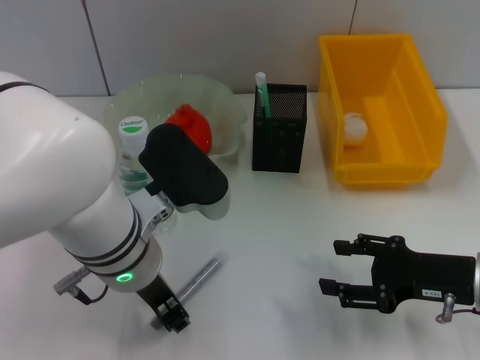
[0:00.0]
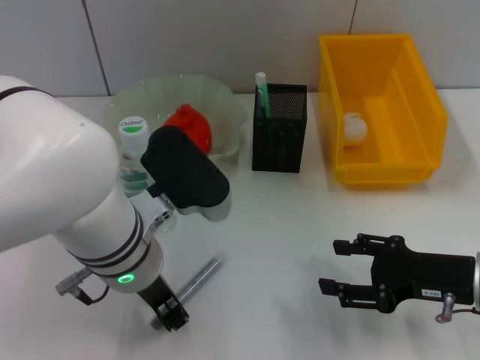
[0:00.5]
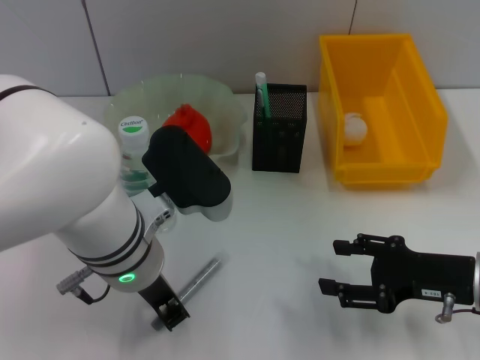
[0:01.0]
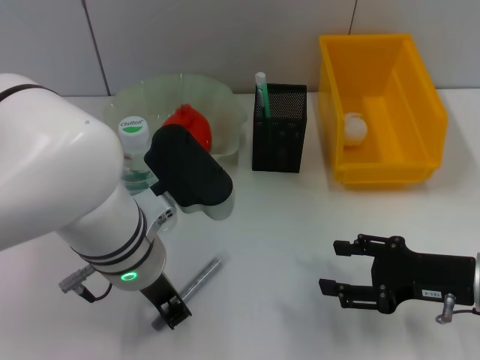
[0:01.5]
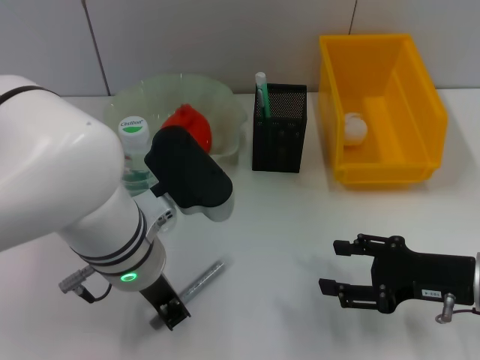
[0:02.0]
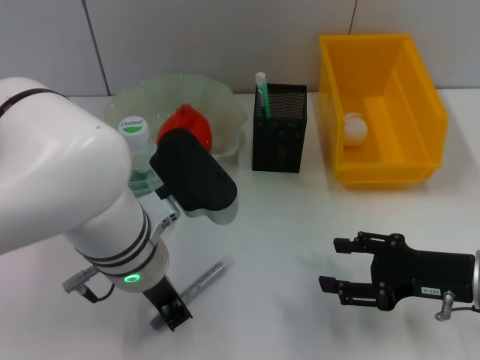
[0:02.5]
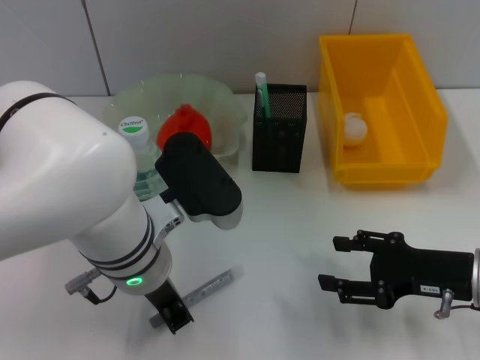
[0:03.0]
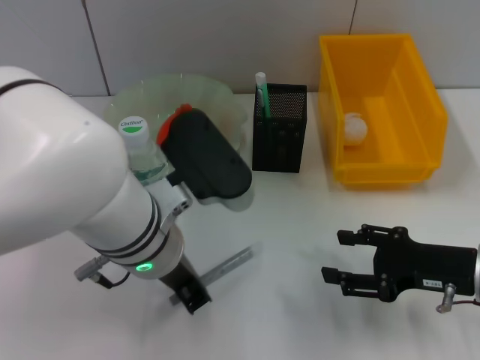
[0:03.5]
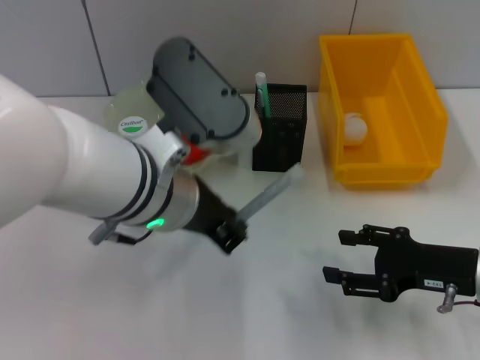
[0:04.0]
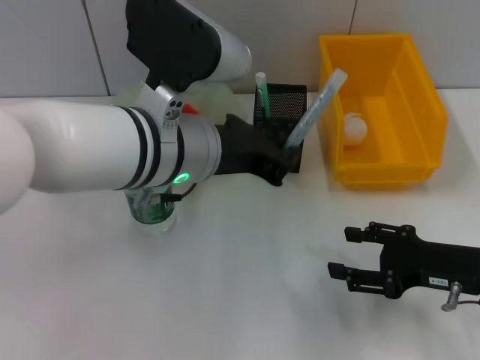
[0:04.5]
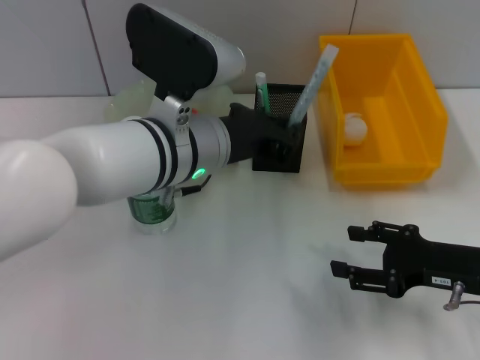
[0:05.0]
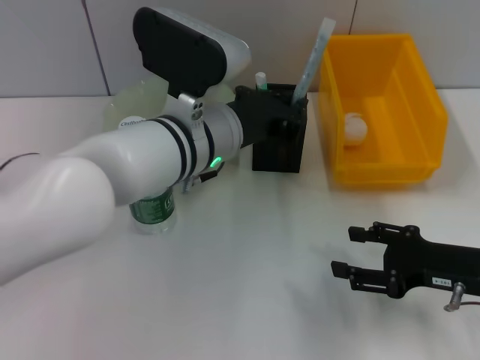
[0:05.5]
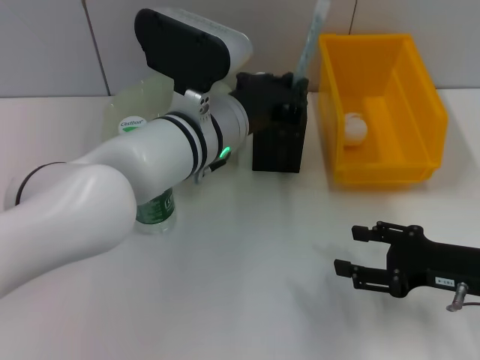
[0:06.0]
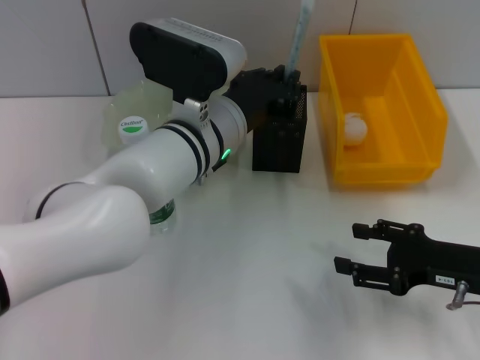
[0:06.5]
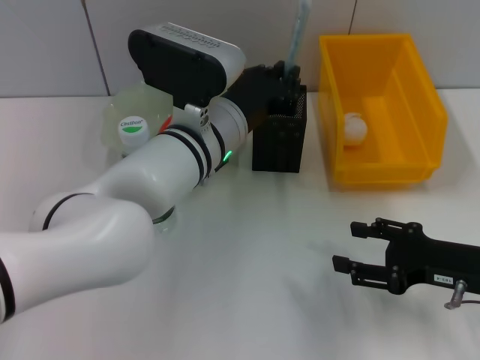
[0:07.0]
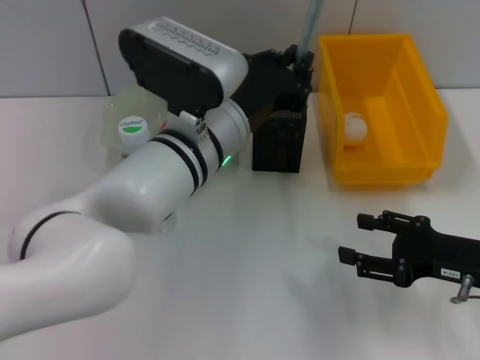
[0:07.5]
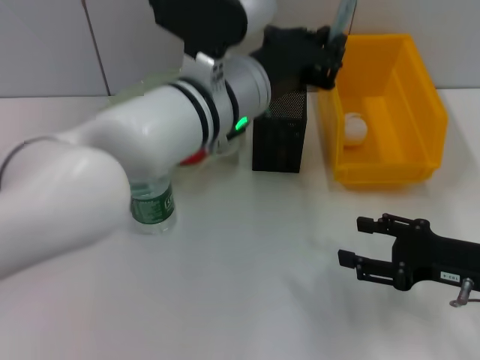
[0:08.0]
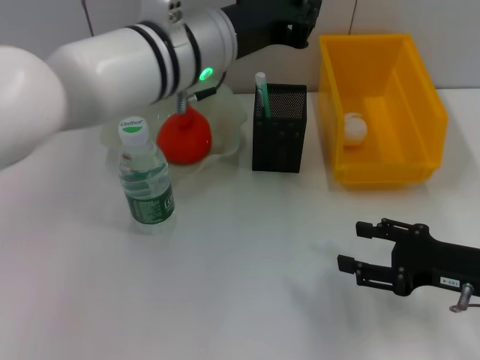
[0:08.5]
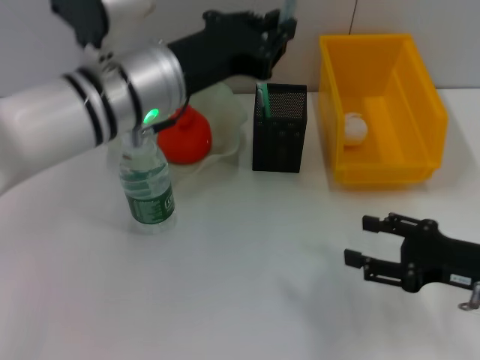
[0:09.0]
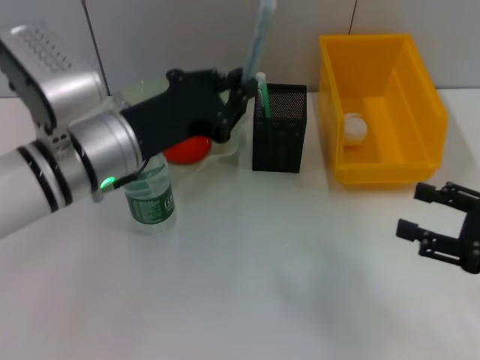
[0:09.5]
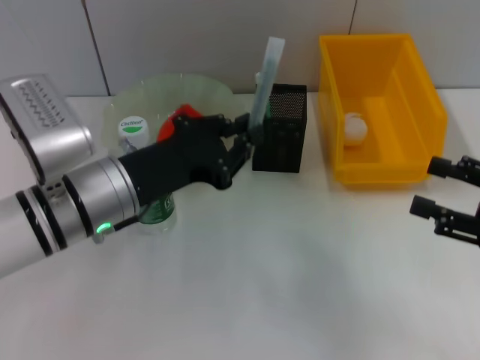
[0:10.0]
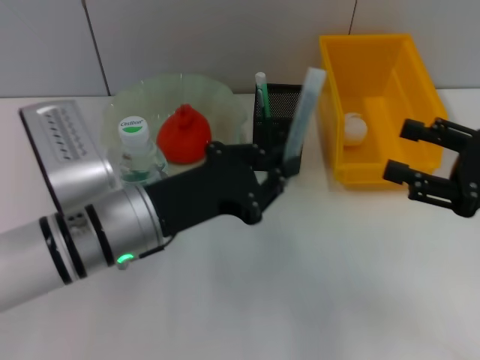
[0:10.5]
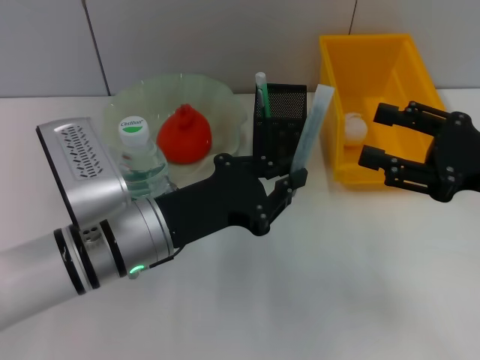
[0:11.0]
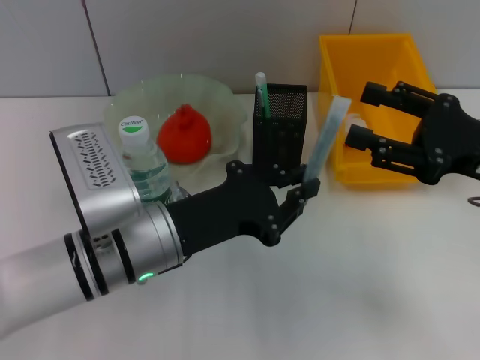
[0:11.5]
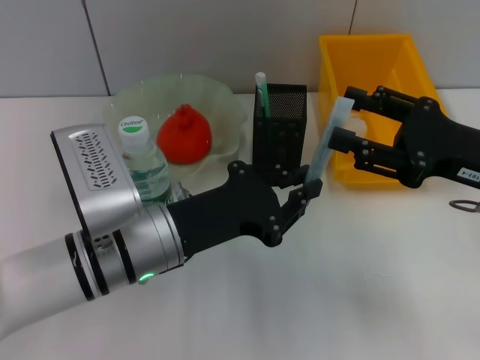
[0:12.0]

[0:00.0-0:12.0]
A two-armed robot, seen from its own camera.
Step, 0:00.0 to 0:02.5: Grab the gray glue with the left hand.
0:00.0 to 0:02.0: The two grippers keep their place.
0:02.0 to 0:04.0: The left gripper travels upward by roughly 5 cm.
0:04.0 to 0:06.0: The left gripper goes about 10 cm forward.
0:06.0 to 0:08.0: The left gripper changes place by about 5 cm.
0:08.0 to 0:10.0: The right gripper is displaced upward by some 5 cm; the left gripper is displaced to the left and downward by approximately 15 cm.
0:10.0 to 0:12.0: The left gripper ends up about 5 cm from where it was; the right gripper travels to the left and forward by roughly 10 cm.

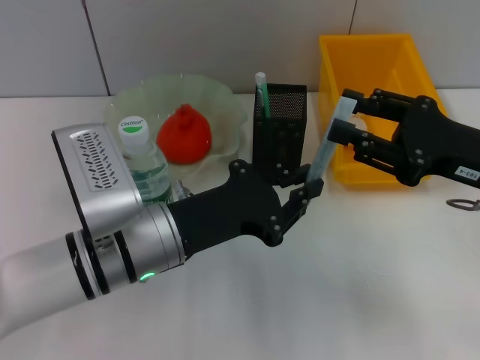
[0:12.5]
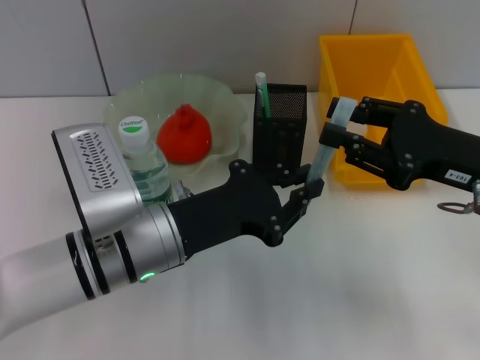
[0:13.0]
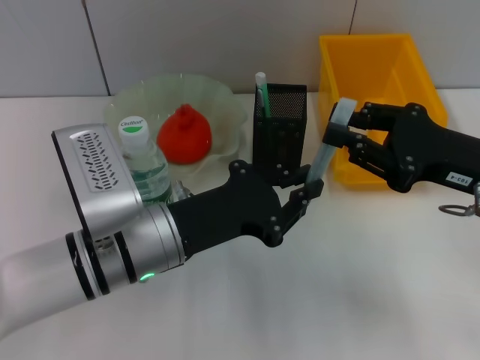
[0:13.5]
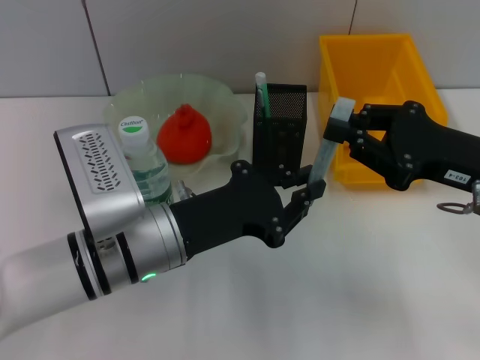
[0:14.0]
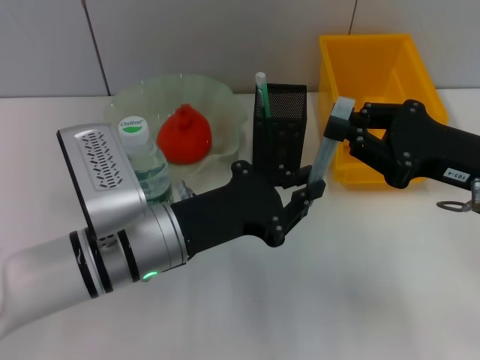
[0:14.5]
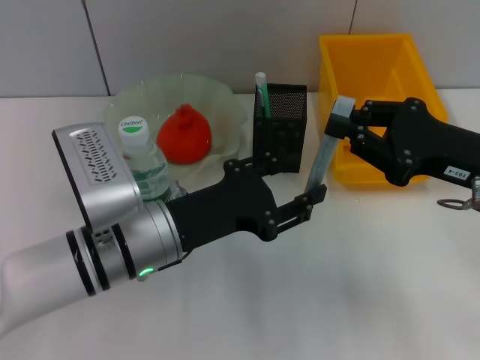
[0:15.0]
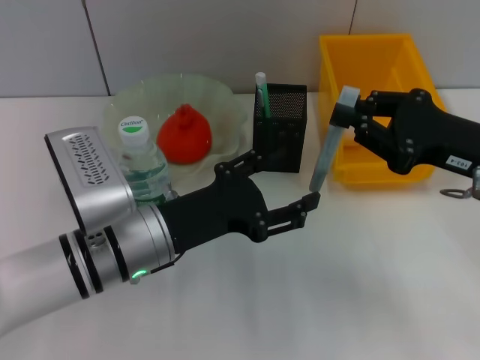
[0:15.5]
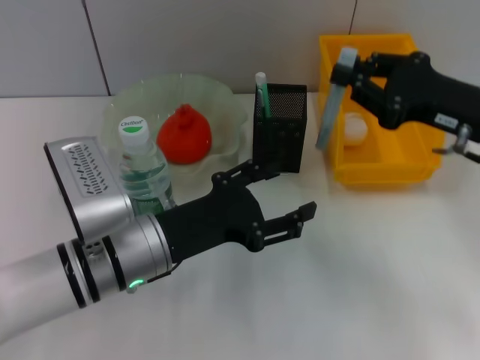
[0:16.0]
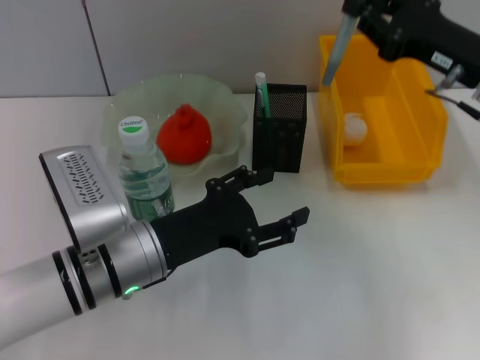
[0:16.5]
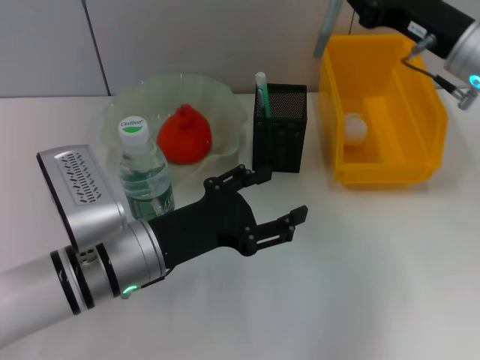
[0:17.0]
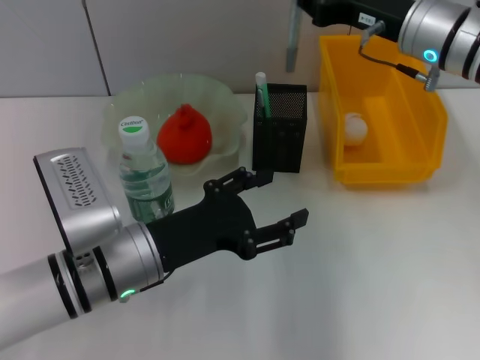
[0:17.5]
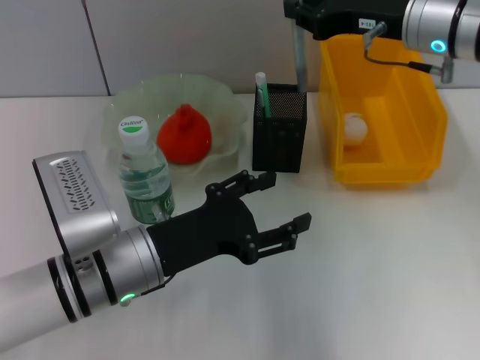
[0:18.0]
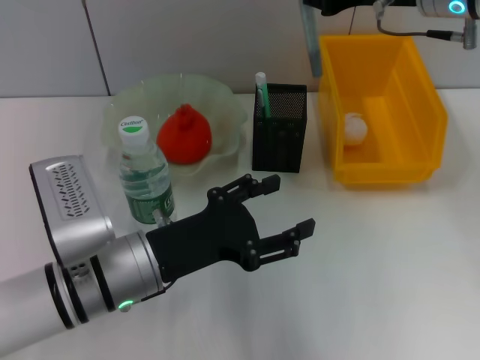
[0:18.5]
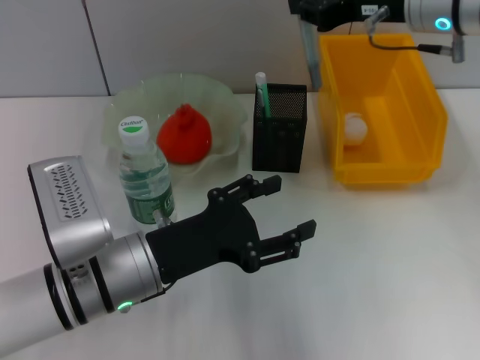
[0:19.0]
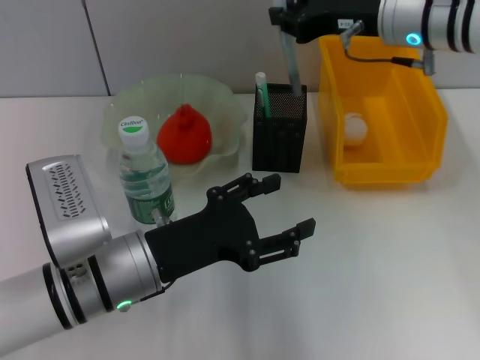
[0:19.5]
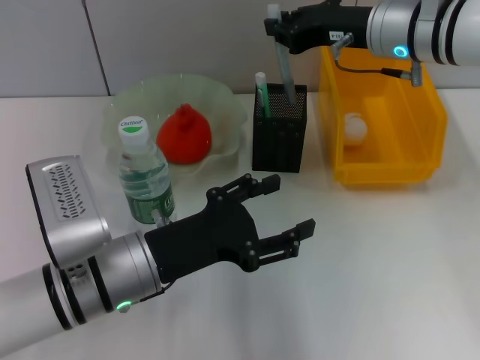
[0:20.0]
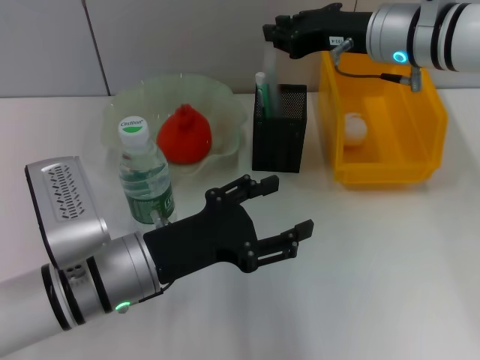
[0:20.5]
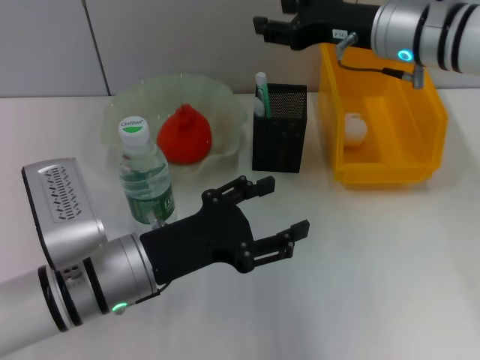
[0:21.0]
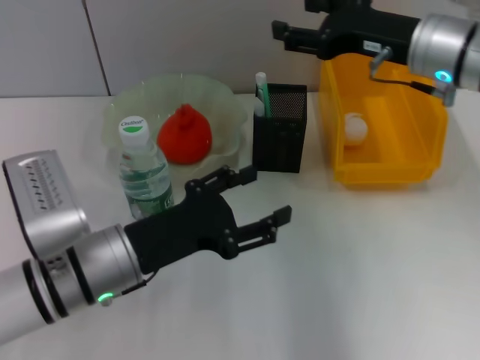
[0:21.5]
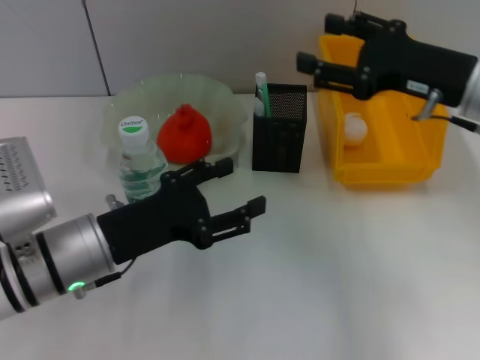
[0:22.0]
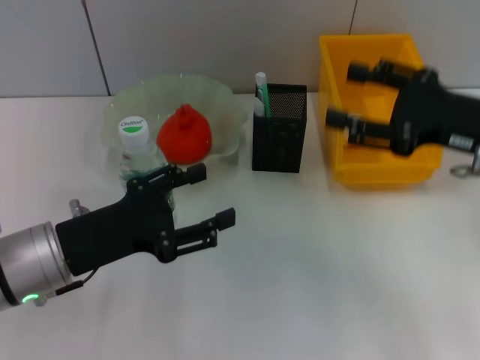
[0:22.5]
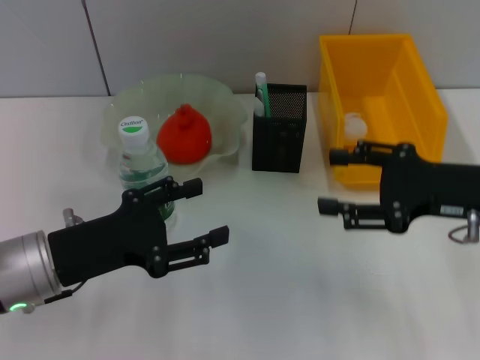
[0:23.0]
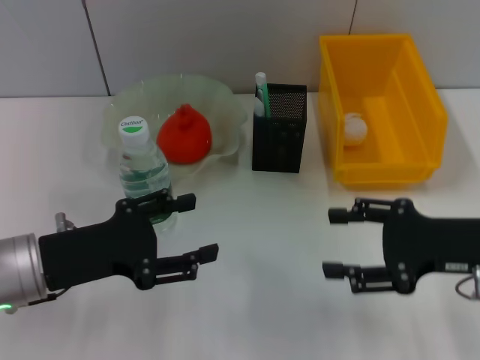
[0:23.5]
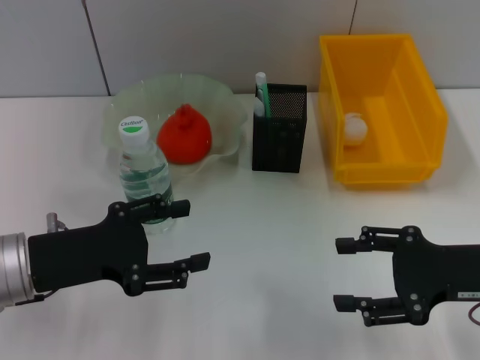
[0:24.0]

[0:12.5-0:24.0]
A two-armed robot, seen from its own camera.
Step, 0:12.5 to 0:14.5: Pass the gray glue from the left hand to the right hand.
Step, 0:15.5 to 0:20.5: Place the gray glue into the pen holder with the right hand.
0:12.5 to 0:14.5: The right gripper closes its fingers.
0:14.5 to 0:16.5: The left gripper opens its fingers. Meanwhile the right gripper heads forward, covering about 5 cm.
0:16.5 to 0:18.5: The right gripper moves upward and to the left, roughly 10 cm.
0:18.5 to 0:20.0: The right gripper is displaced downward by some 5 cm.
0:20.0 to 0:22.0: The right gripper goes approximately 10 cm backward and to the right, and opens up.
0:22.0 to 0:24.0: The right gripper shifts approximately 15 cm backward and downward. Meanwhile the left gripper heads to the left, covering some 5 cm.

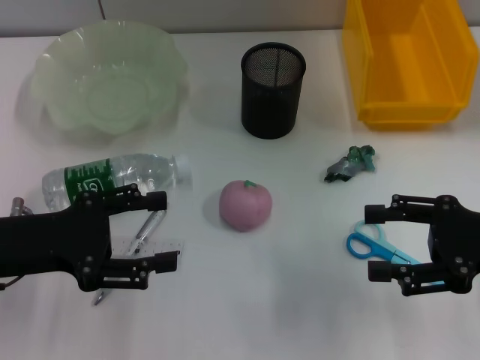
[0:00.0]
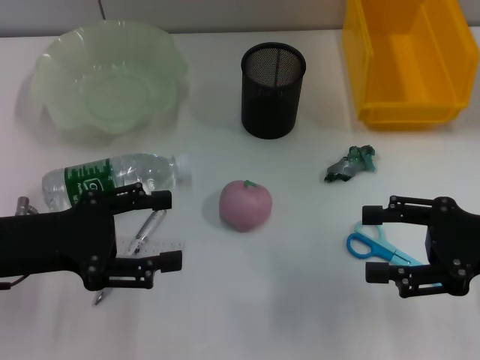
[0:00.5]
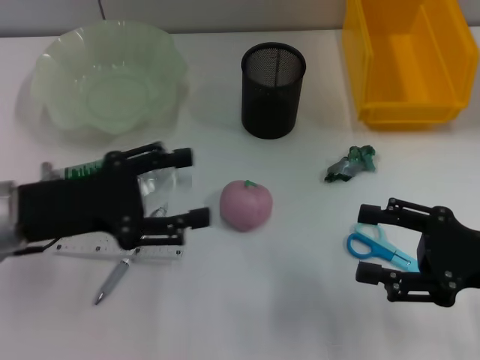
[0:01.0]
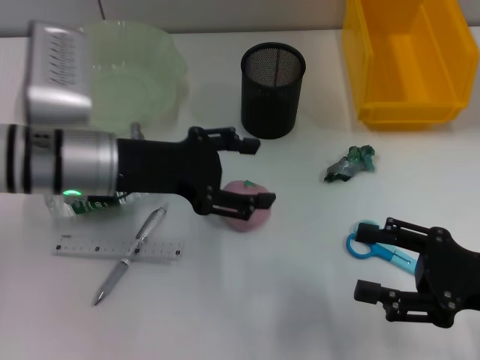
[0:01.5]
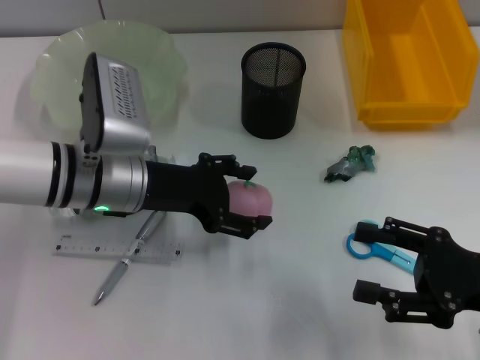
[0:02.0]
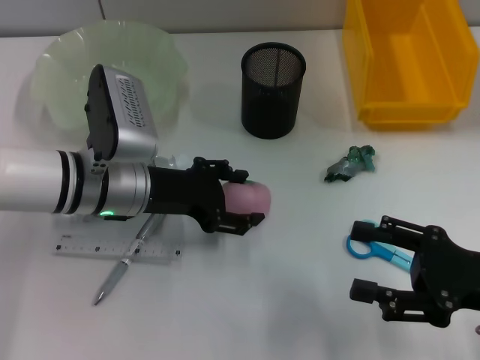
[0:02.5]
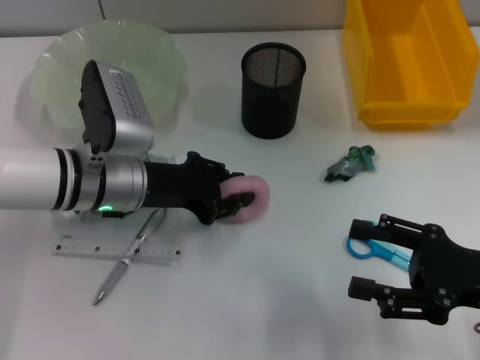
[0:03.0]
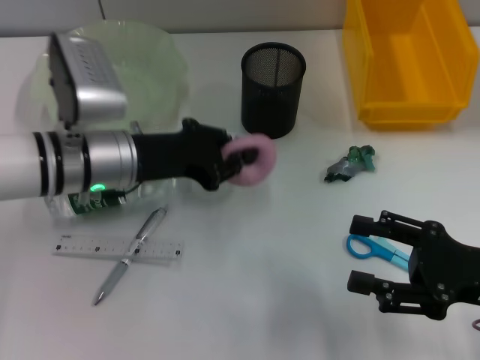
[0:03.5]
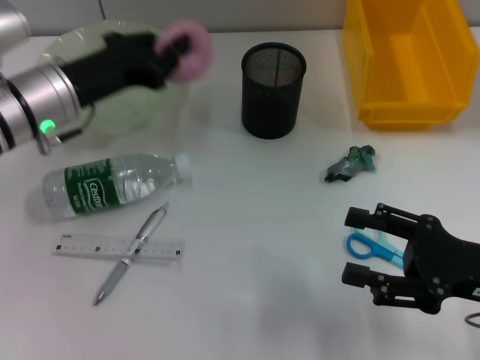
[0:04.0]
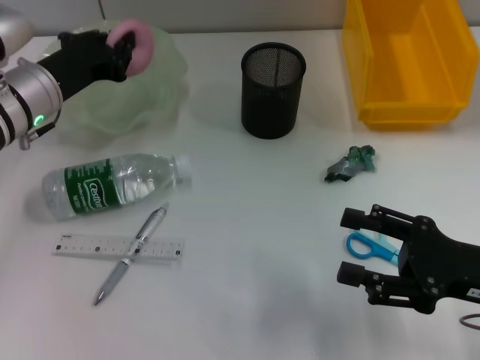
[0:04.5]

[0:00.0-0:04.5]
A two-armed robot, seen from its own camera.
Step, 0:00.0 to 0:02.5: Grab the peach with the left hand.
0:00.0 to 0:02.0: The right gripper ends up some 5 cm from where it was. The left gripper moves to the right and forward, approximately 15 cm.
0:02.0 to 0:04.5: The left gripper heads to the left and forward, covering approximately 10 cm, and closes its fingers.
